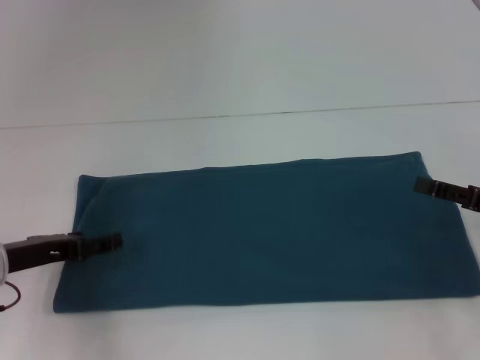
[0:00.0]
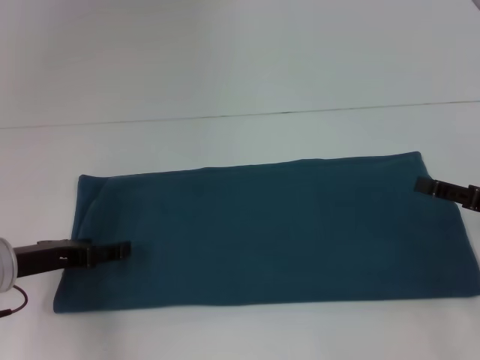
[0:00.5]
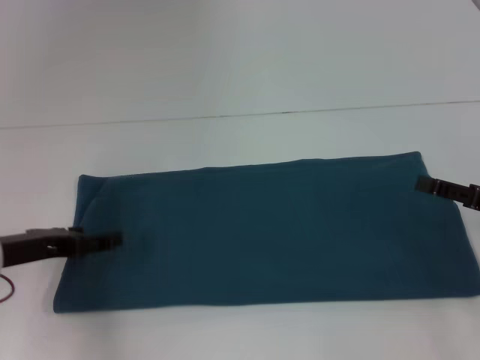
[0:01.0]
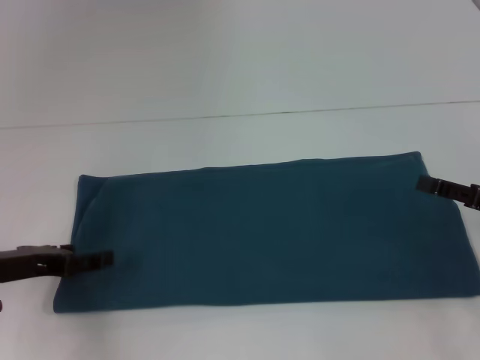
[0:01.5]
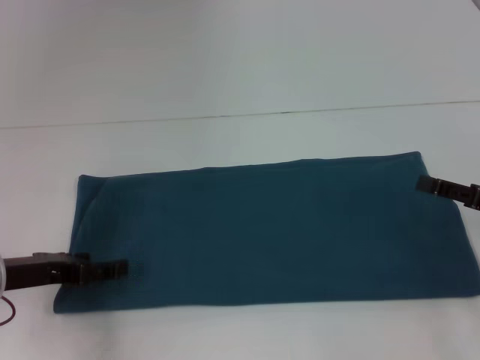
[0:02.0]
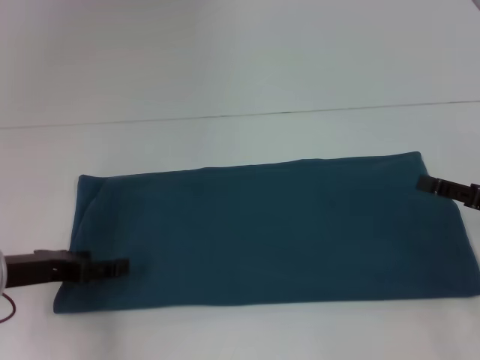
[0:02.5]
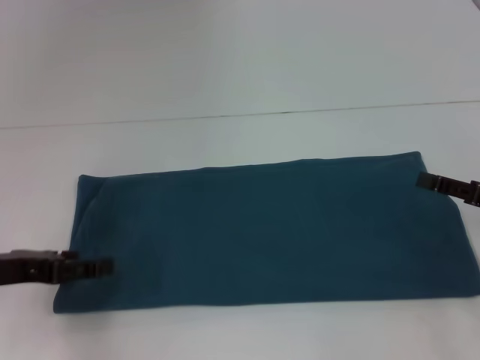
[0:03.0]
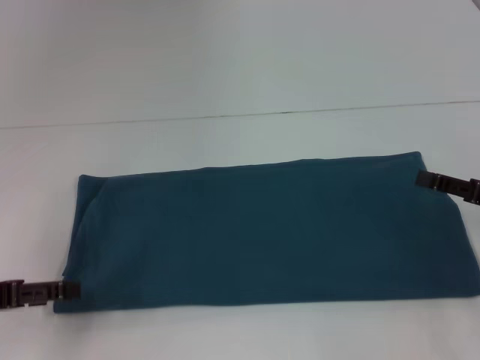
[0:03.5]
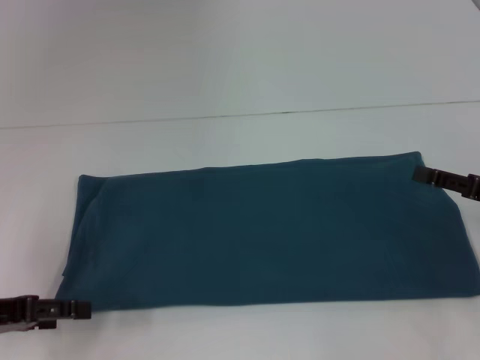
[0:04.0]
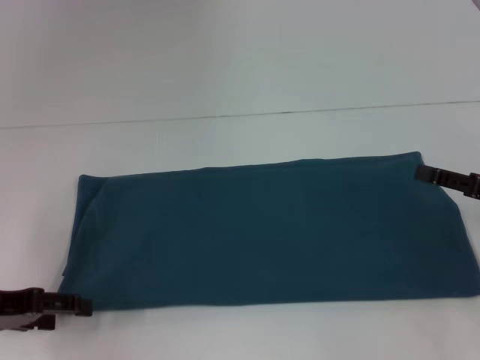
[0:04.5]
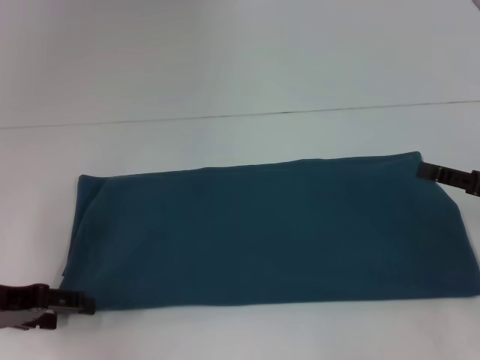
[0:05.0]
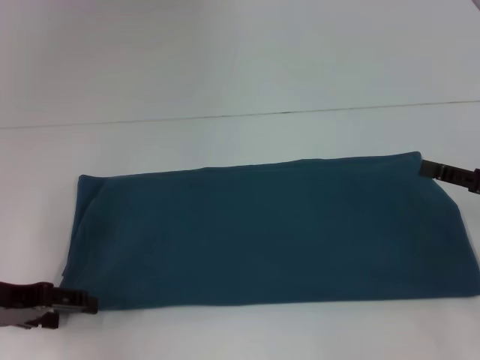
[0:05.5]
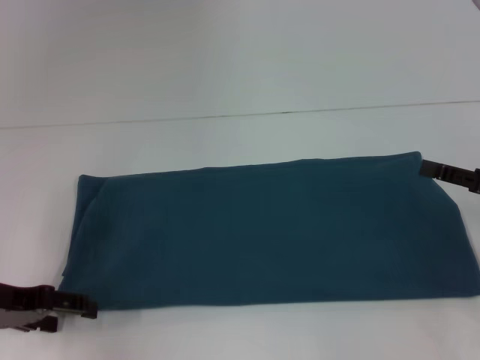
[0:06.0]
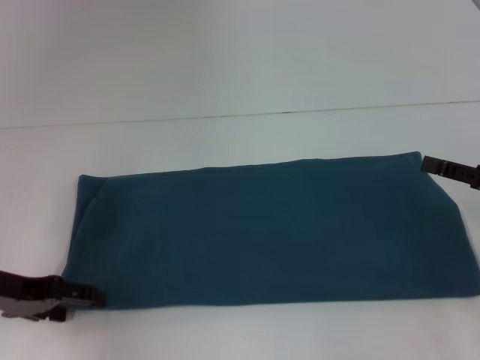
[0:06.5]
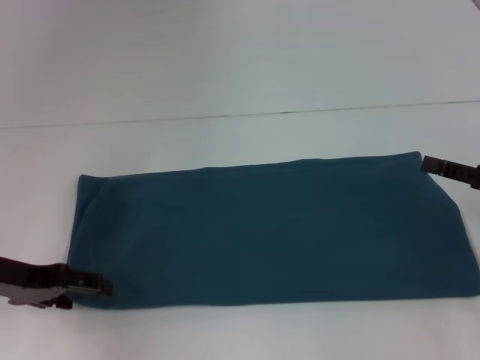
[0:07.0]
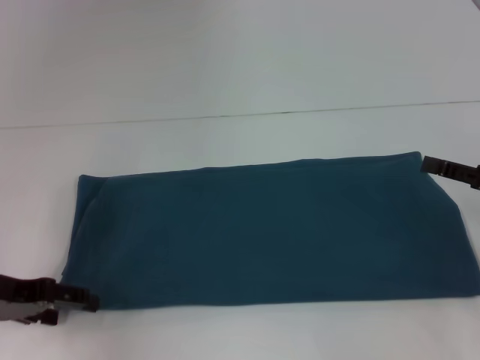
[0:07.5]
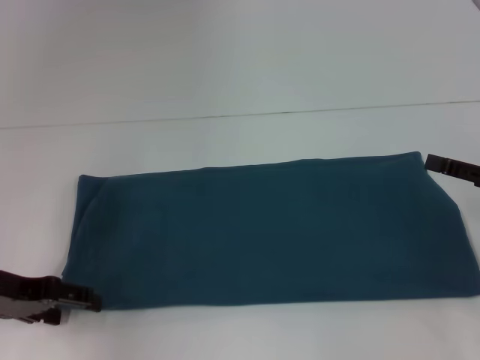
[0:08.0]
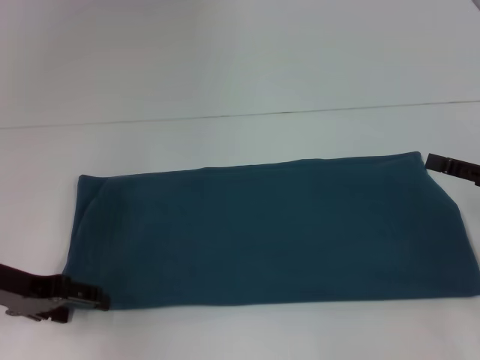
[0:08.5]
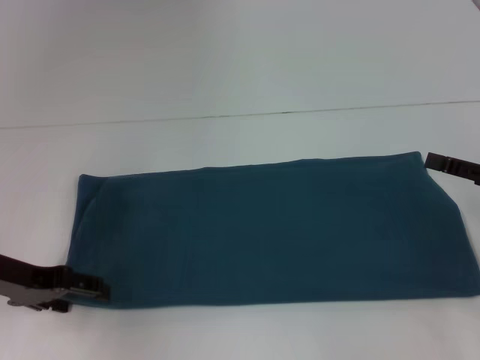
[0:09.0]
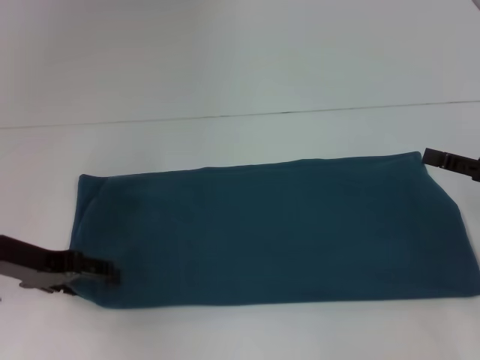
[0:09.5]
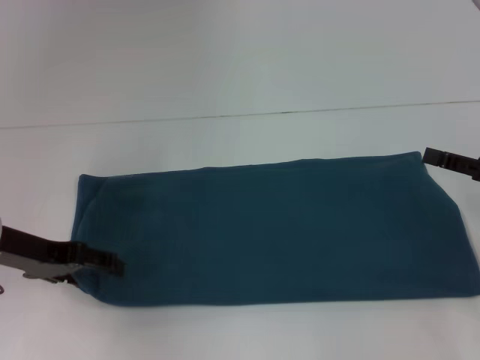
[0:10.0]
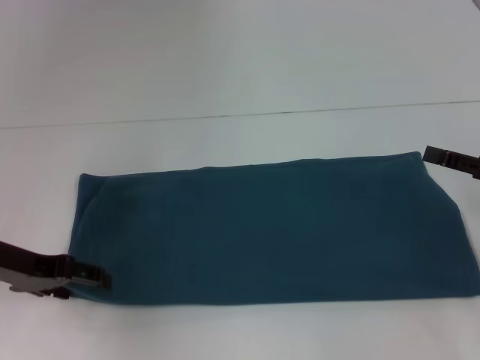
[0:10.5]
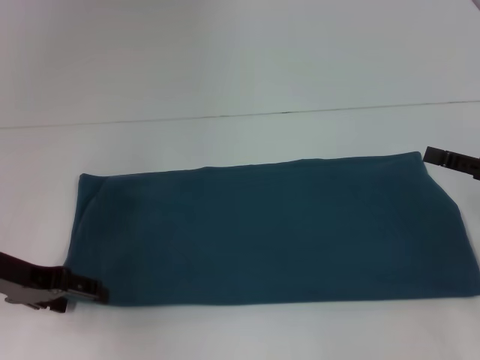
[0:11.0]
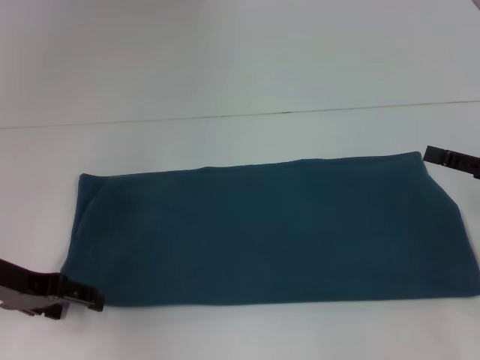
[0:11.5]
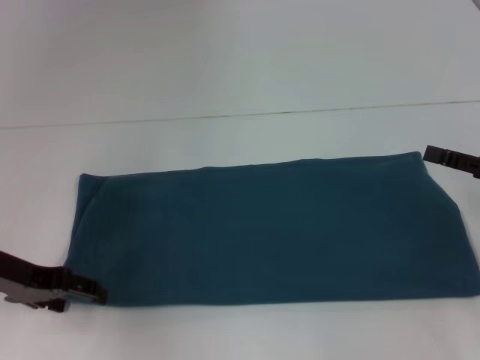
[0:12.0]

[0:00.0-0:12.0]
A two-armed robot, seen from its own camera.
0:00.0 to 0:02.0: The grippers stay close to where they were, moving slightly.
0:02.0 to 0:04.0: The left gripper ends up about 5 cm from where it was.
0:04.0 to 0:08.0: The grippers make only small movements.
0:08.0 to 0:12.0: The grippers move only a little.

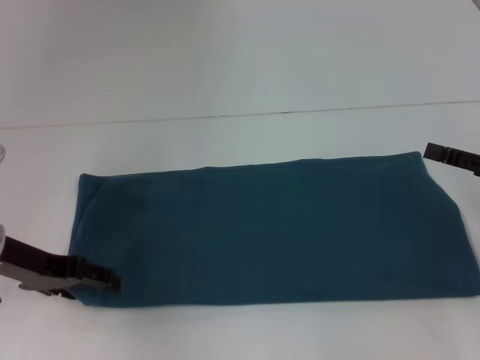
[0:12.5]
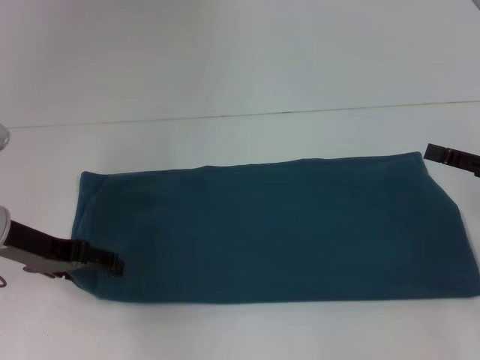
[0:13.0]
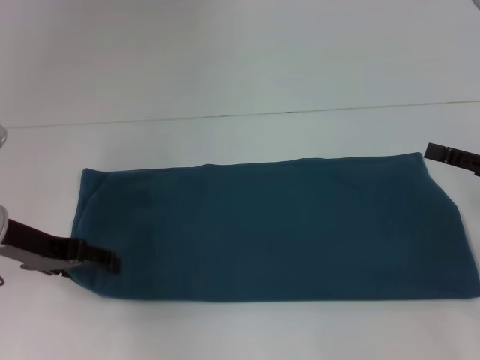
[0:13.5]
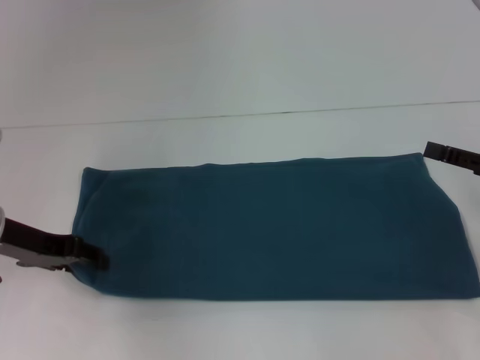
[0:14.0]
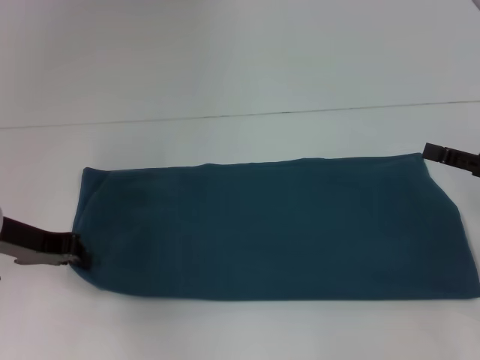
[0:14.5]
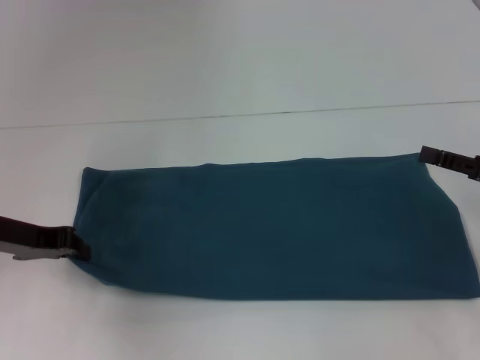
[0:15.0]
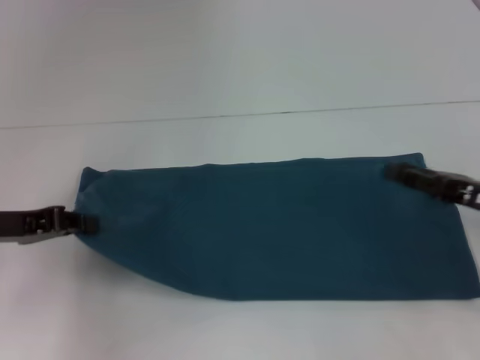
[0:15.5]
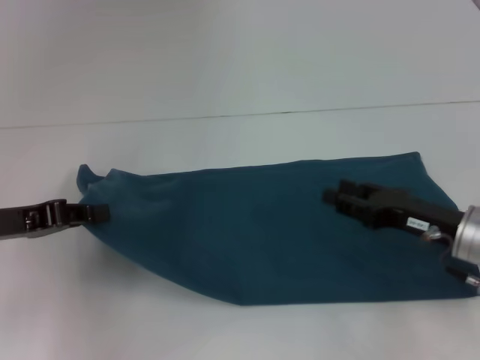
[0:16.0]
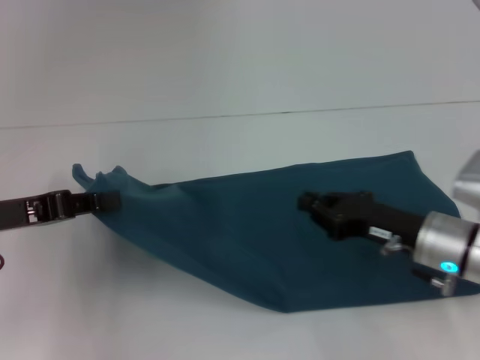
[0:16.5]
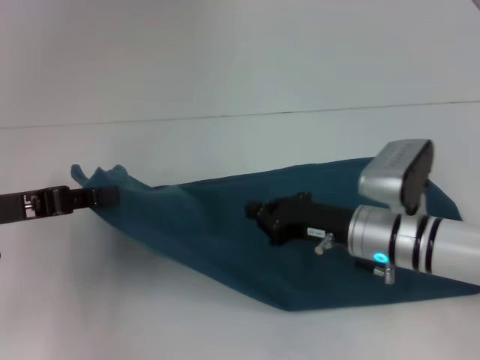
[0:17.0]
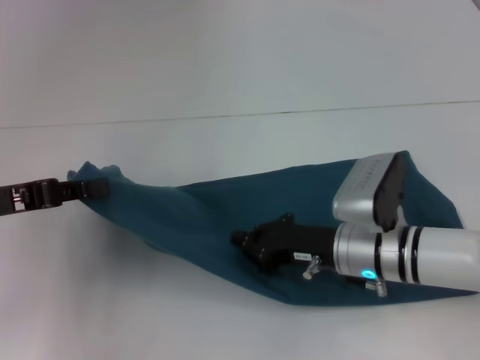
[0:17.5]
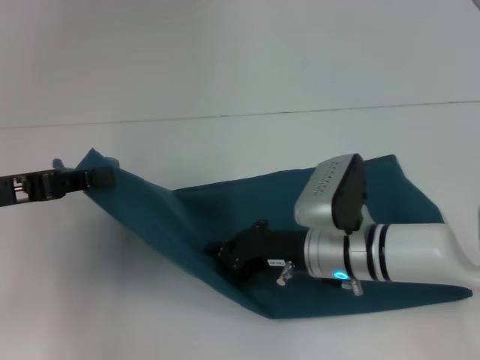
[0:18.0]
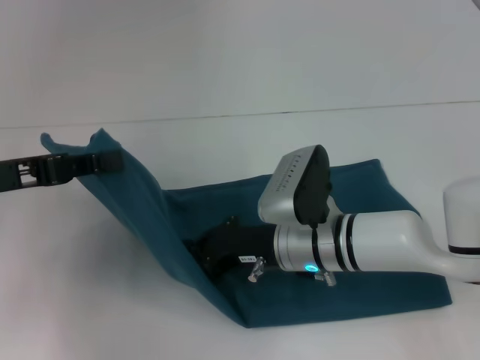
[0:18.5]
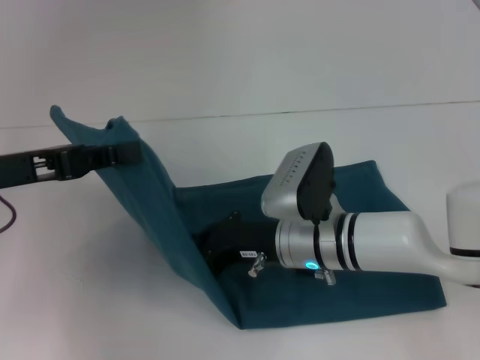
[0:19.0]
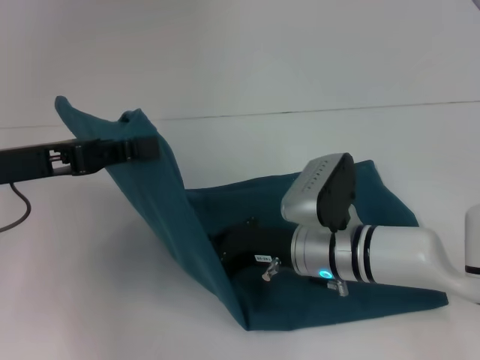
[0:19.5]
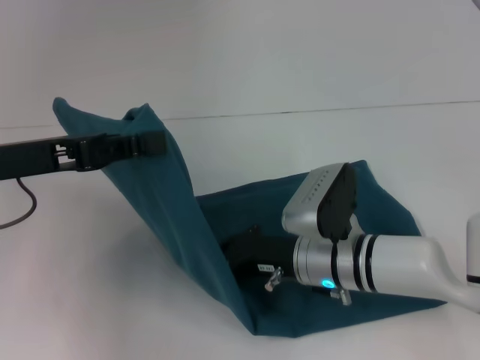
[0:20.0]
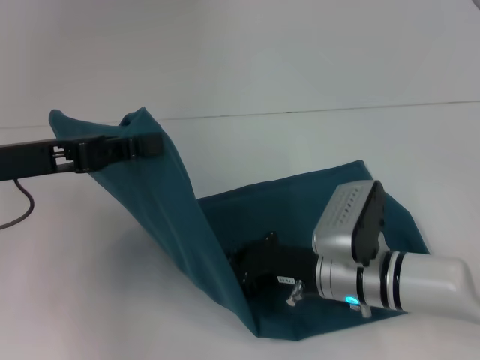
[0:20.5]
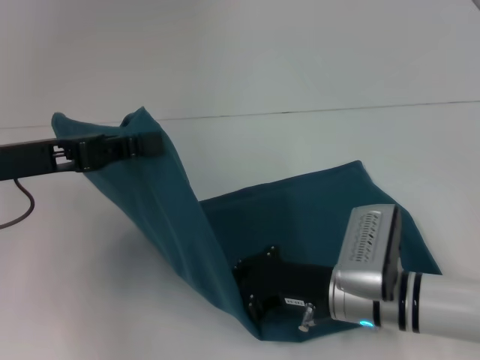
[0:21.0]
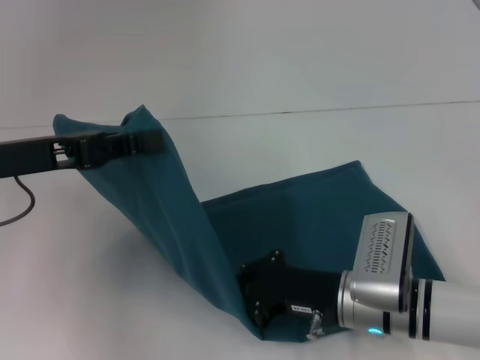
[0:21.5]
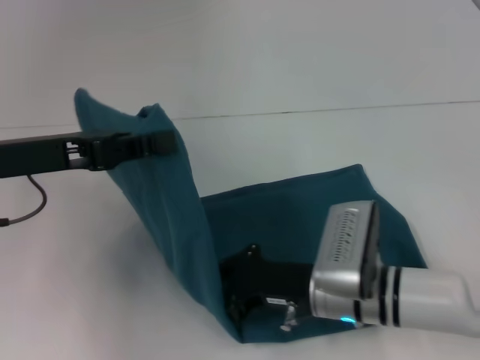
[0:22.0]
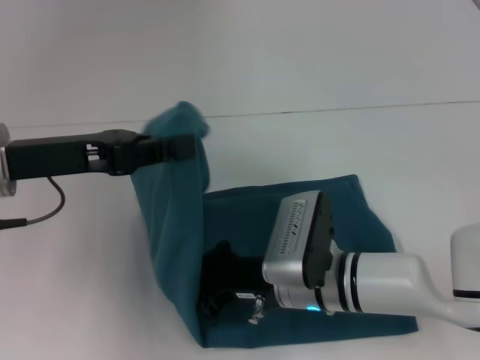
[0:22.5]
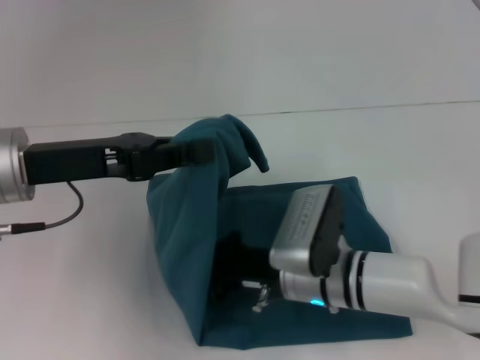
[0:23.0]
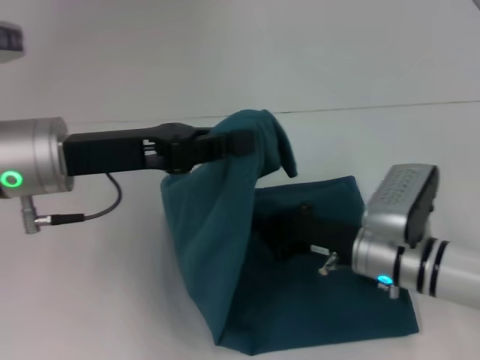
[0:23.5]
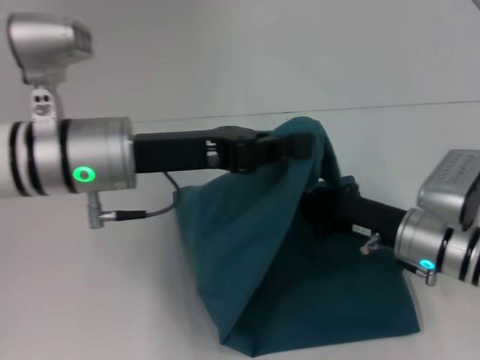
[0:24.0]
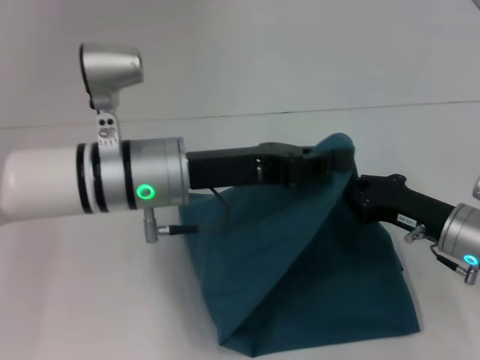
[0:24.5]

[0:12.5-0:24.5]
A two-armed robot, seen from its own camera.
Step, 0:12.5 to 0:23.5: Press the middle of the clothes with your right hand.
0:12.5 to 0:14.5: The left gripper closes its fingers.
0:14.5 to 0:16.5: The right gripper shifts roughly 15 cm to the left and downward; the left gripper goes about 5 cm backward.
0:16.5 to 0:18.5: The right gripper heads to the left, covering roughly 15 cm, and closes up.
0:18.5 to 0:20.5: The right gripper ends up approximately 5 cm from where it was.
0:22.5 to 0:24.5: Both grippers move to the right, roughly 15 cm.

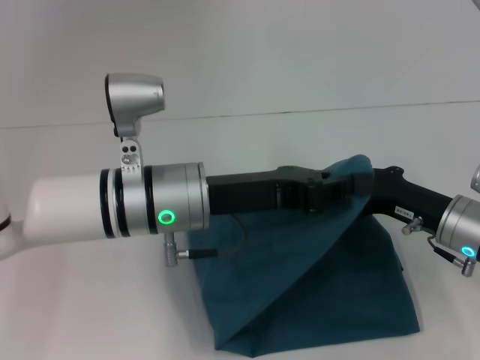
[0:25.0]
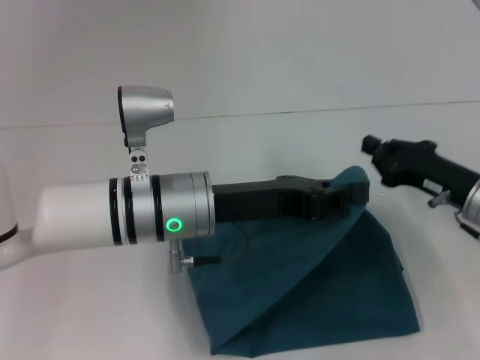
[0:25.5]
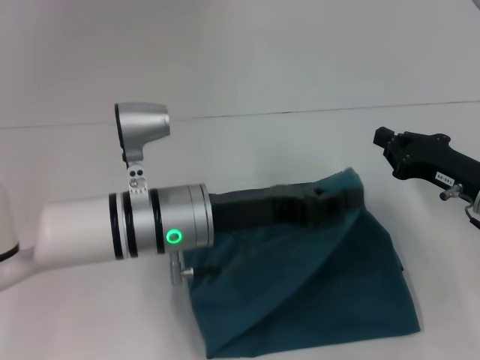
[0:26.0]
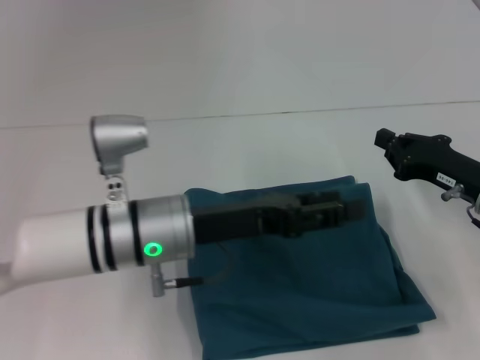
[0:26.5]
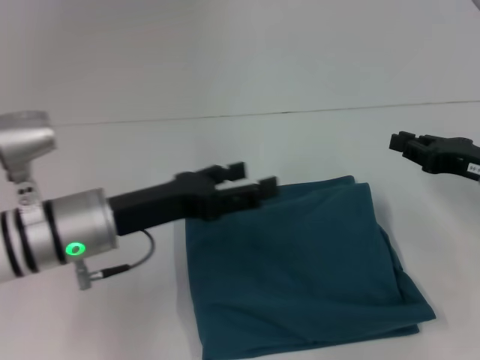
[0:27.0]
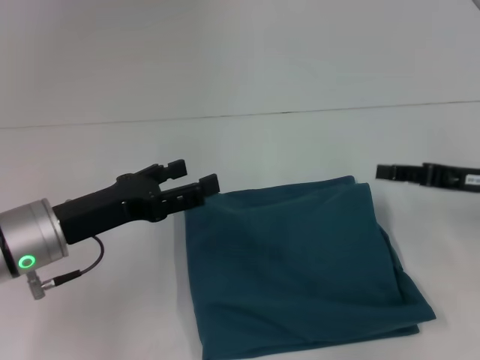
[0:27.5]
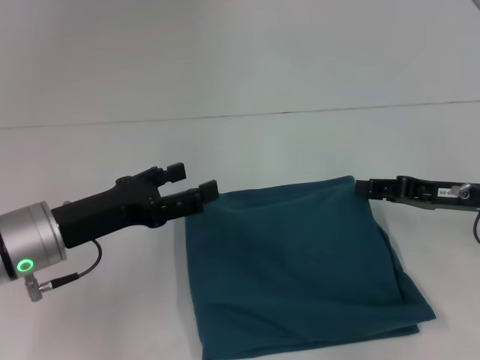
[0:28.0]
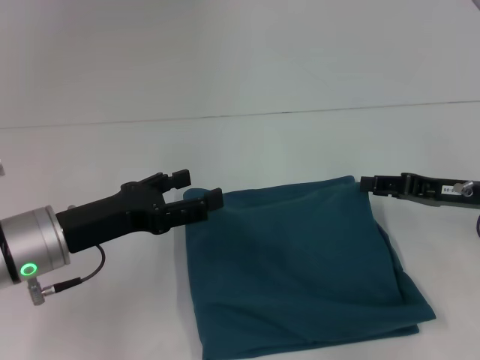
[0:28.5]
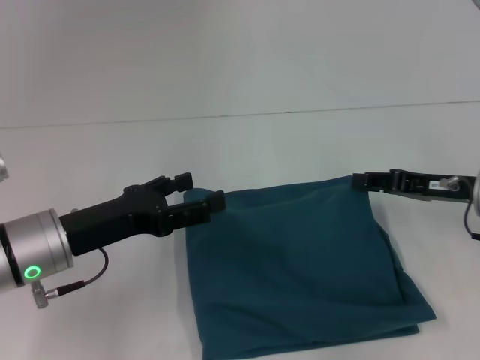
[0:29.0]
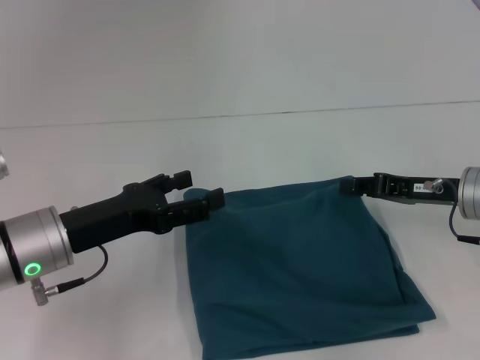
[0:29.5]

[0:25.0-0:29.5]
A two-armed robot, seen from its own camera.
Step, 0:25.0 to 0:26.5: Fold the clothes to the left.
0:25.0 to 0:27.0: The left gripper heads to the left, covering approximately 10 cm, and opens; the right gripper is displaced to the right and upward by some 10 cm.
